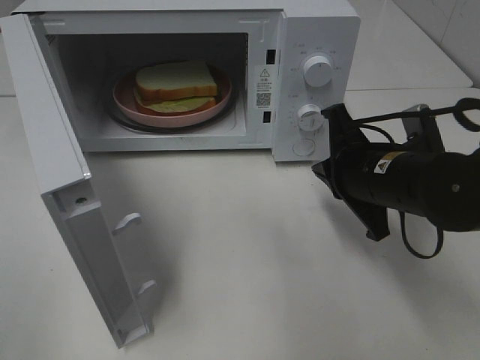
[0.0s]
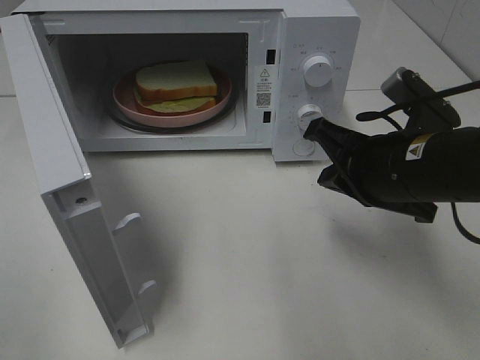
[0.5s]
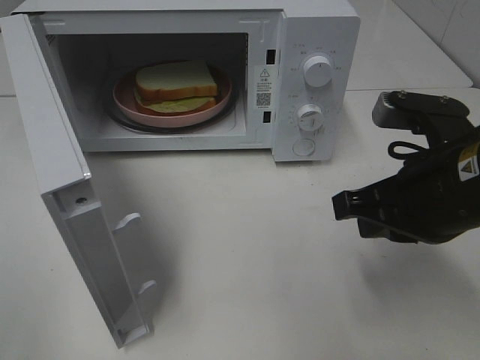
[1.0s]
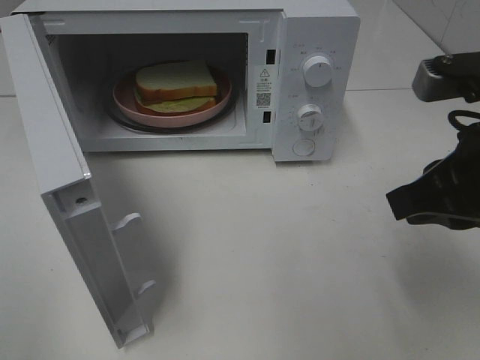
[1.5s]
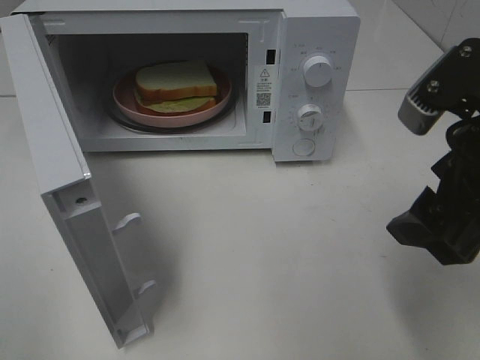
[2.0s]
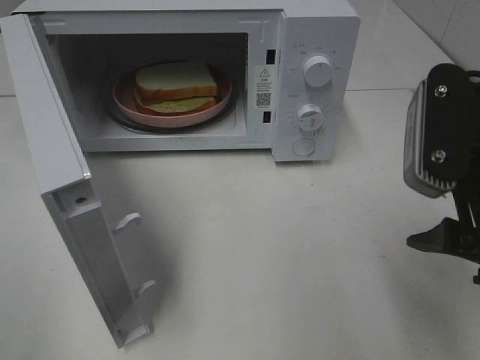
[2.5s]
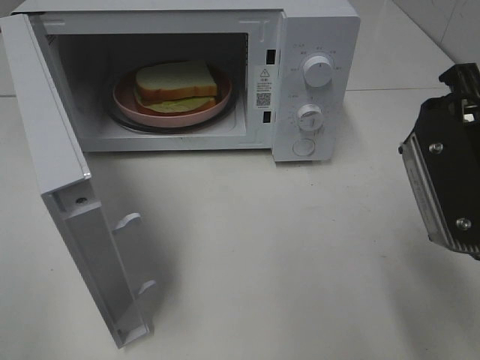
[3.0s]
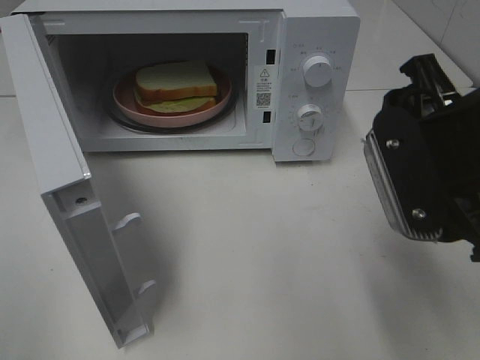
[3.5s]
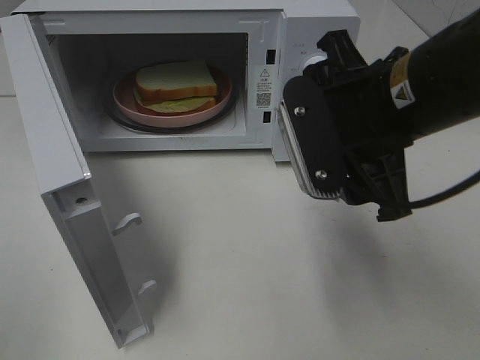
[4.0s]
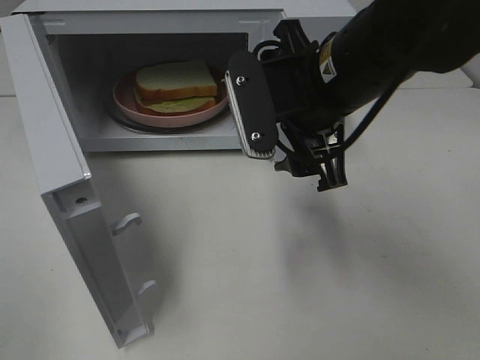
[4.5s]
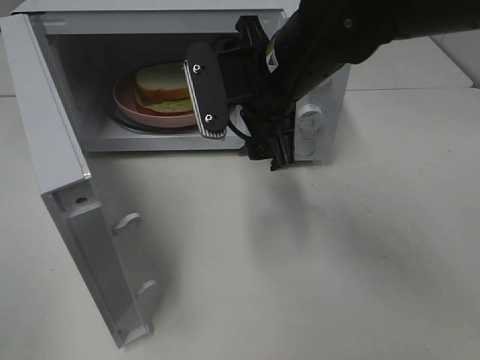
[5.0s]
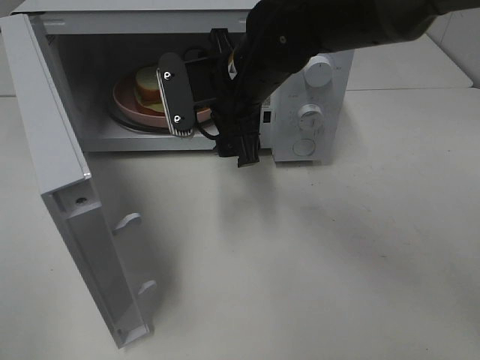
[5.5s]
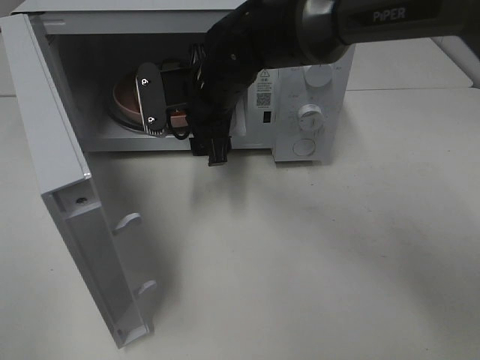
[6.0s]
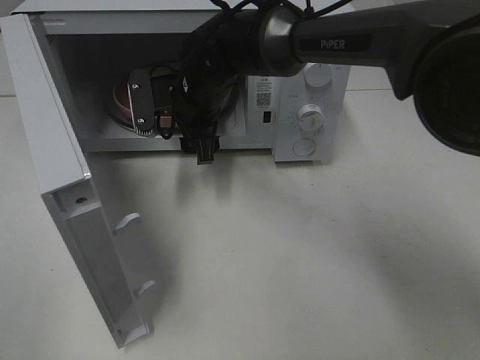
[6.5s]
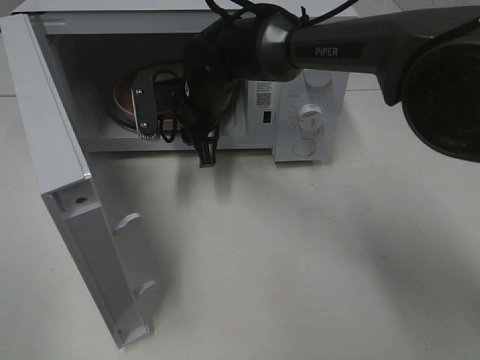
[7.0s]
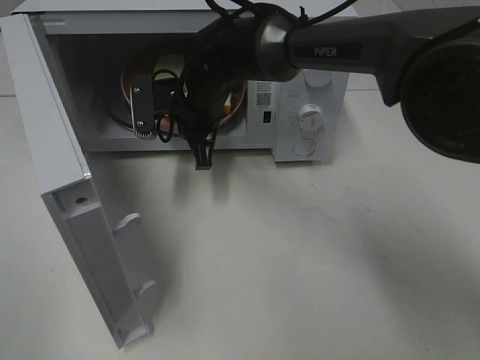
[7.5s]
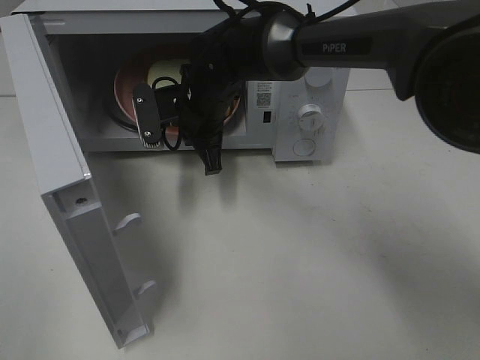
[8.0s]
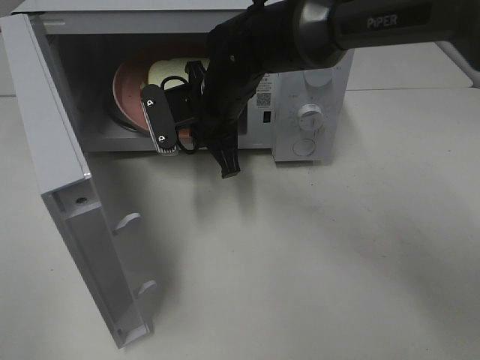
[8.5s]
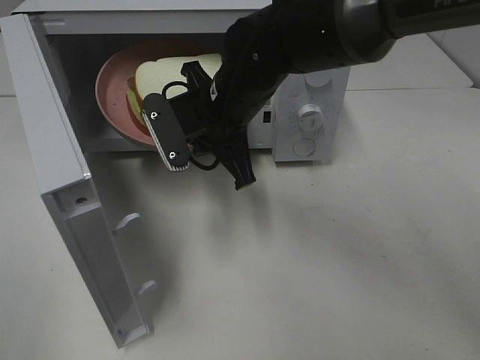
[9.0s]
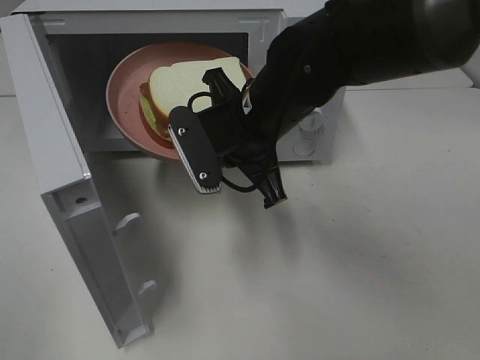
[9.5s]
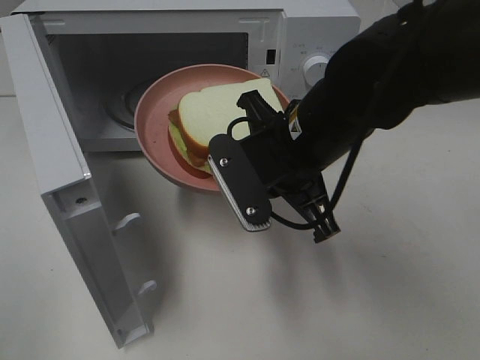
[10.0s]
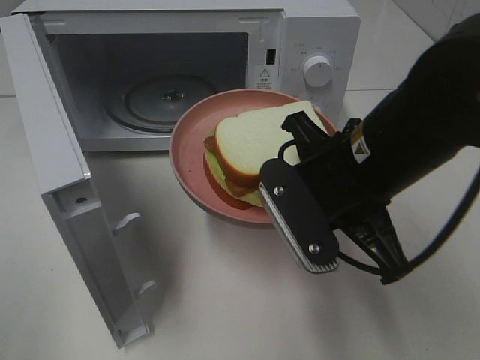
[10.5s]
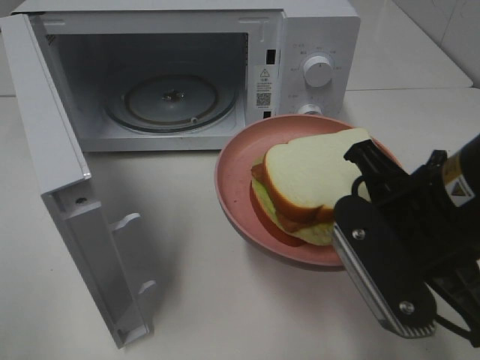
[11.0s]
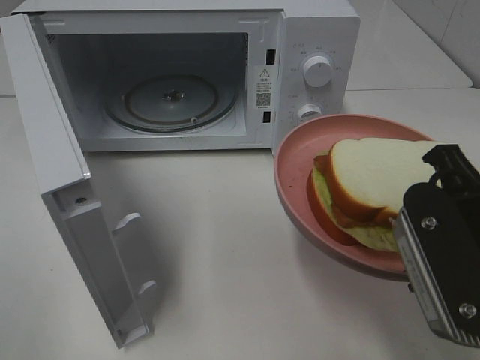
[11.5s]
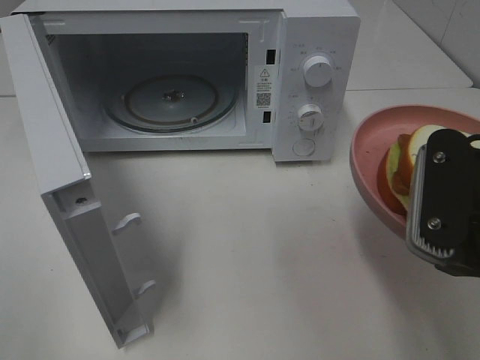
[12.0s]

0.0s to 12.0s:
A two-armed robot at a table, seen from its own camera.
Task of the whole recording: Heat Sandwich.
Step, 0.0s to 7.0s: Right hand: grab the plate with the sandwich.
0.0s to 2.0s: The right gripper shifts roughly 15 cm upward and backward, and opens.
2.0s to 4.0s: The right gripper travels to the left and forward by some 10 cm.
4.0s to 6.0s: The right gripper travels forward, to the left and downward by about 25 cm.
6.0s to 8.0s: The right gripper closes.
8.0s to 10.0s: The right gripper travels backward and to the right by approximately 20 cm.
10.0s to 12.0s: The right gripper is displaced to the right and backward by some 15 cm.

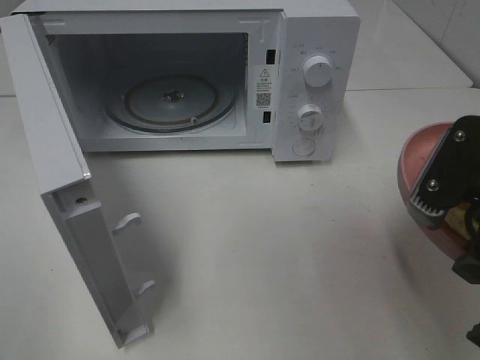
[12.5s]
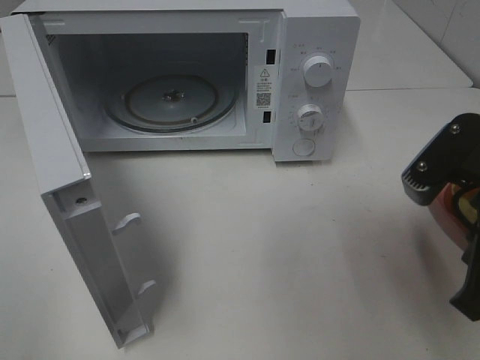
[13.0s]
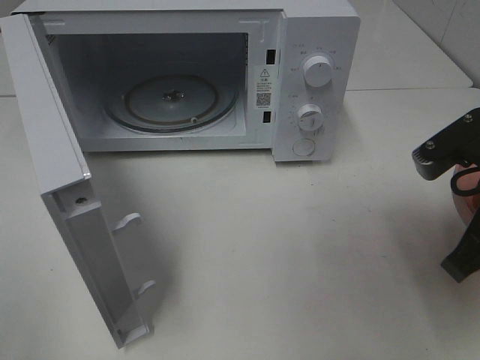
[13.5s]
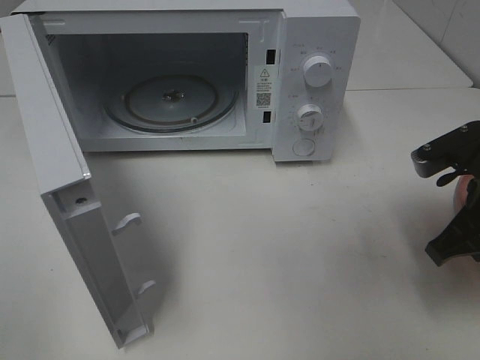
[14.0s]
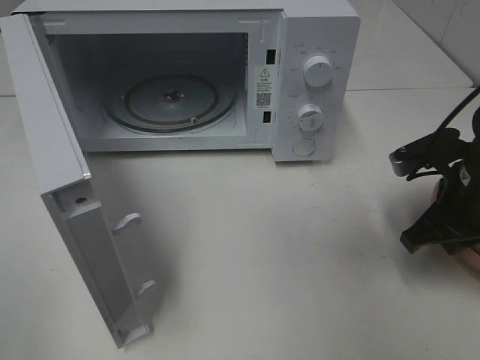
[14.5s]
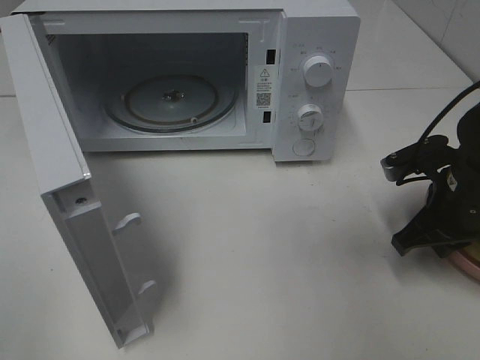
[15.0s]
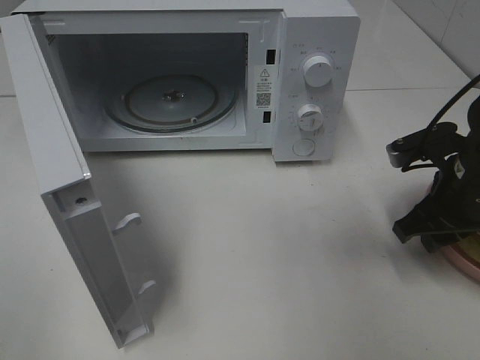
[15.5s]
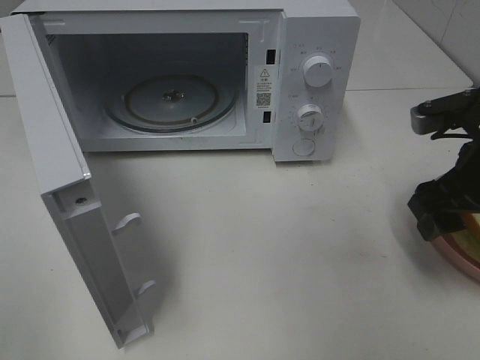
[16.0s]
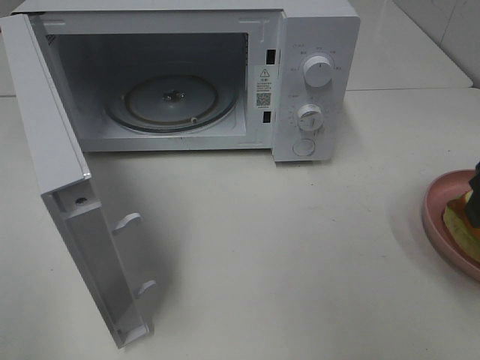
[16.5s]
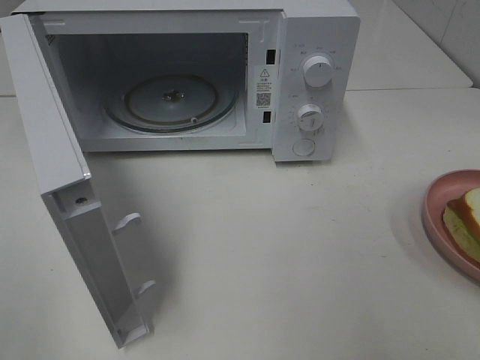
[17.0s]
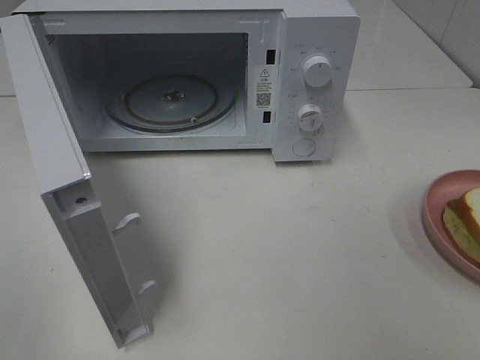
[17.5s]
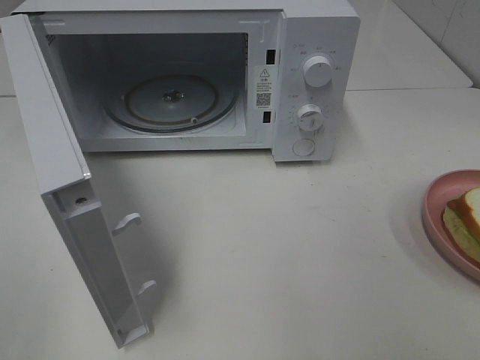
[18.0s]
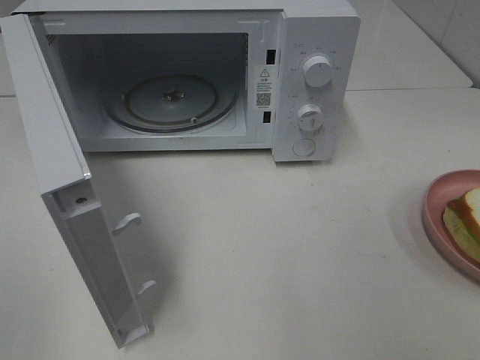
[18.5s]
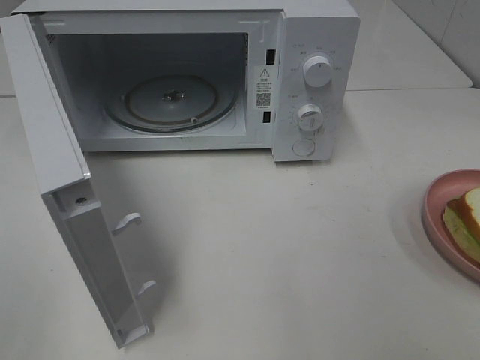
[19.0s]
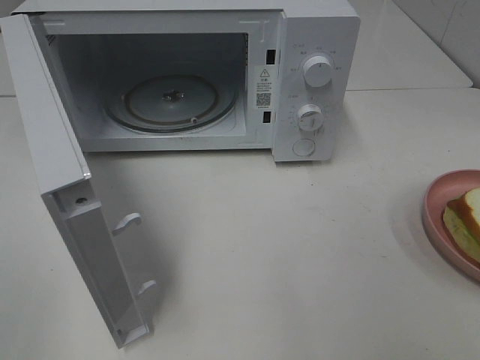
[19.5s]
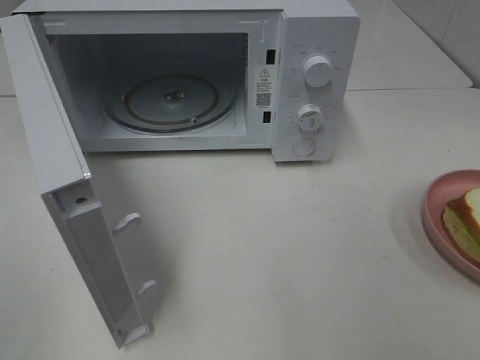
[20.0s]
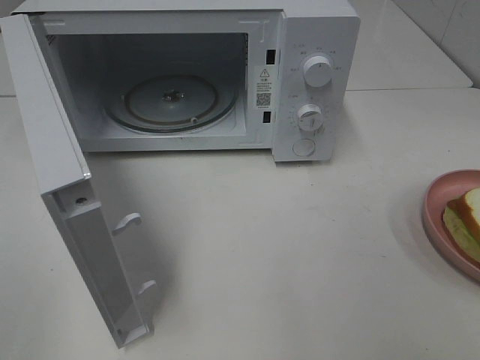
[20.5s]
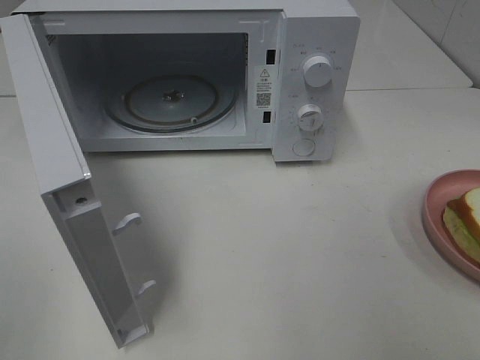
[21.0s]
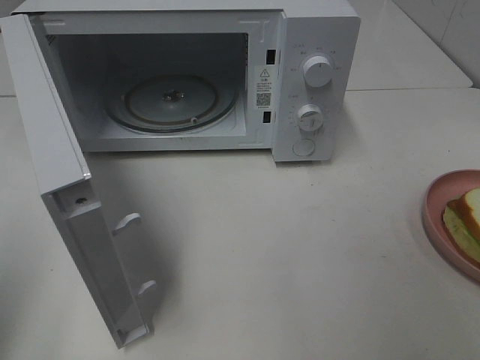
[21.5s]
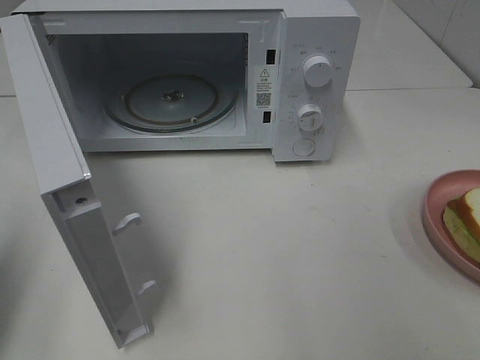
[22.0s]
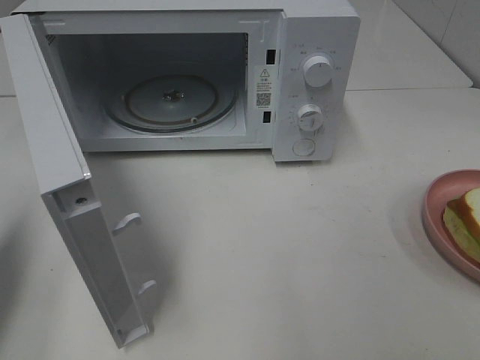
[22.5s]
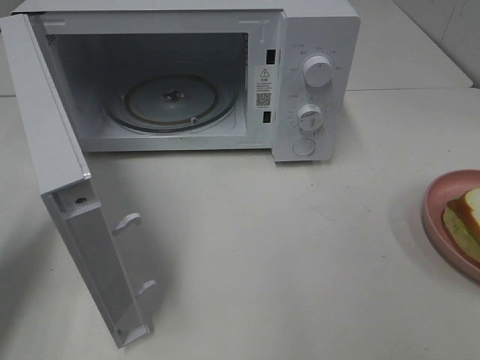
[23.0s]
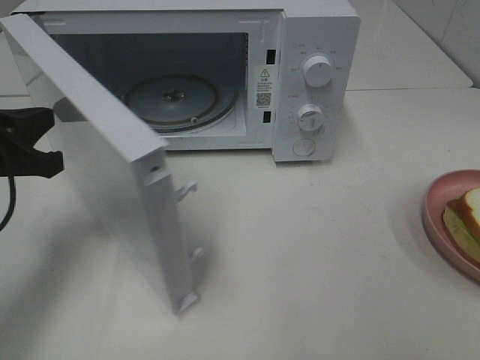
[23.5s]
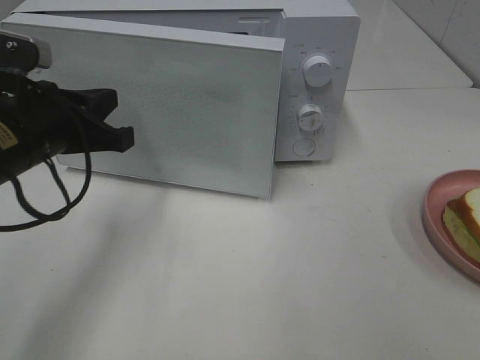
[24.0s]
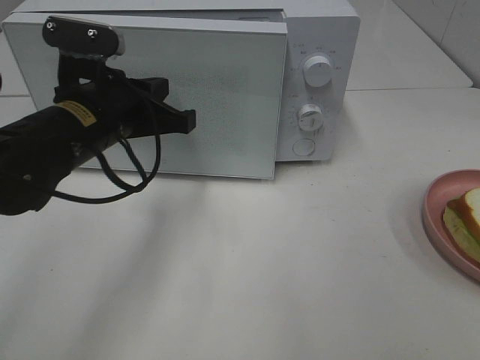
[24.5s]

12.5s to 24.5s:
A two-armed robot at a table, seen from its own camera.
Task of the whole recording: Heat Sandwich.
Step, 12.5s to 15.5s: Right hand: place the plate on the table.
12.5s to 14.5s: The right gripper moves forward and downward, some 15 cm.
14.5s to 16.5s: The right gripper moves upward and backward, some 15 cm, and opens.
16.5s to 18.5s: The right gripper is displaced backward by approximately 20 cm.
18.5s to 20.5s: The two grippers keep their place.
20.5s to 22.5s: The left gripper goes about 20 cm forward, and closes its fingers.
22.5s to 24.5s: The left gripper shifts approximately 25 cm to the right and forward.

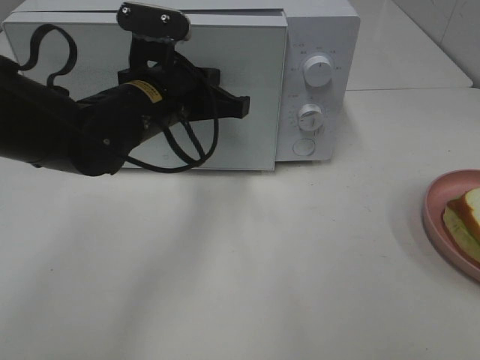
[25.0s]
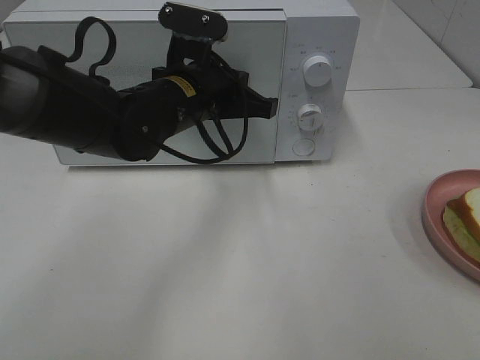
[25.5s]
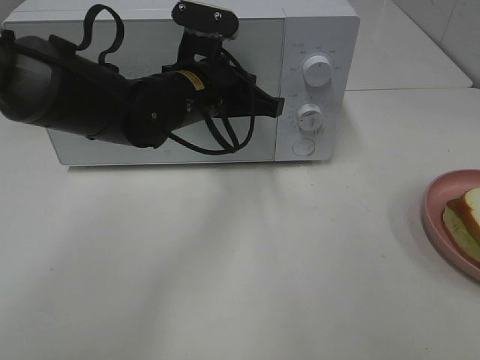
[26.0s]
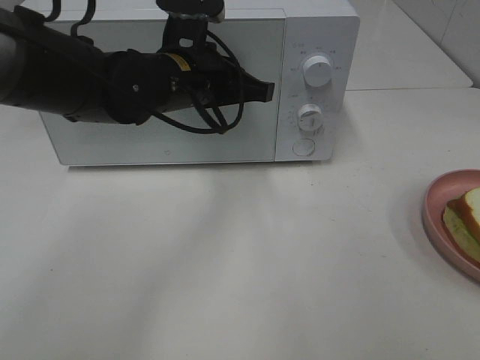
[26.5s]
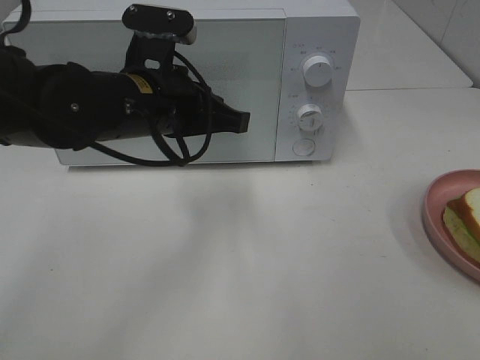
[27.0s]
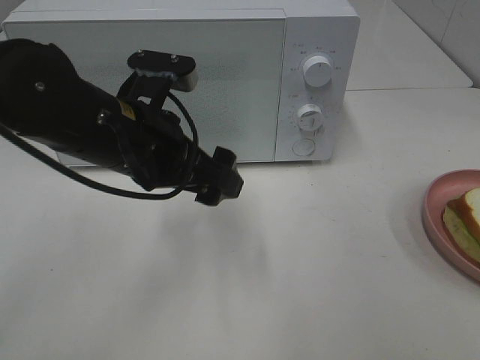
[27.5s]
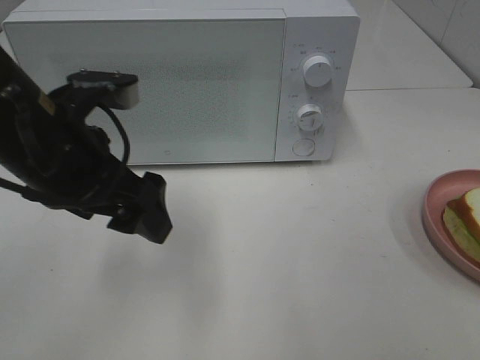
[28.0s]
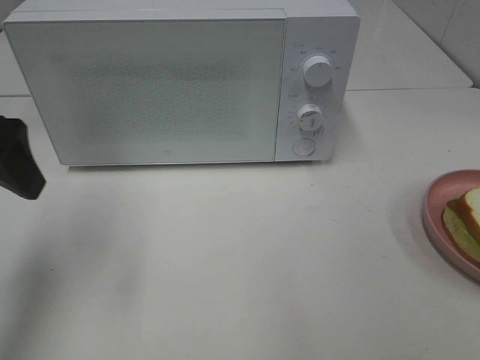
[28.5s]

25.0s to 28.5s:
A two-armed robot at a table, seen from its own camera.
Task of the whole recording: Heat Sandwich.
Step, 25.0s to 27.0s: Left hand: close the microwave door.
25.0s to 27.0s: The grippers make only small movements.
27.0s to 28.5s: The left gripper travels to the left and upward by approximately 20 cm, and opens its fingers.
